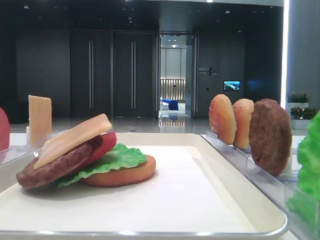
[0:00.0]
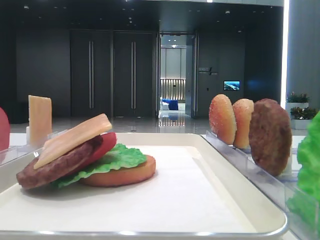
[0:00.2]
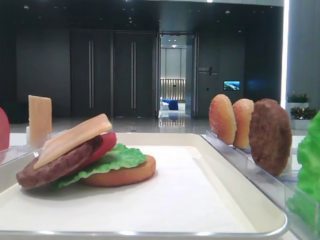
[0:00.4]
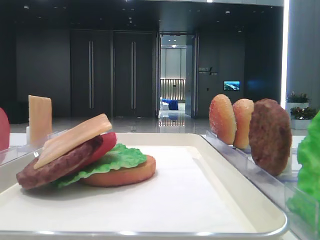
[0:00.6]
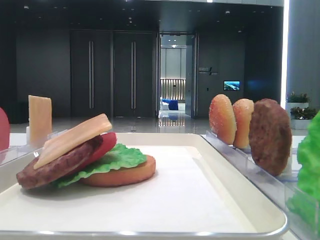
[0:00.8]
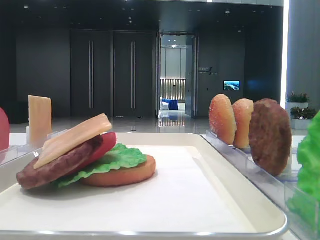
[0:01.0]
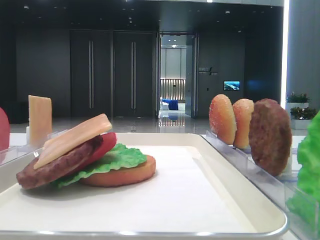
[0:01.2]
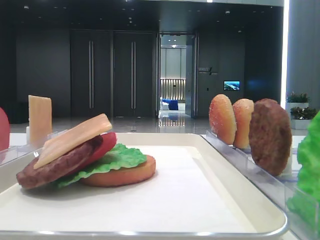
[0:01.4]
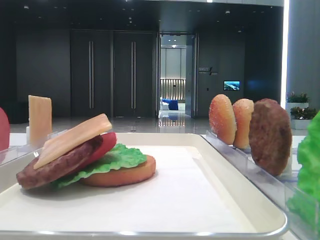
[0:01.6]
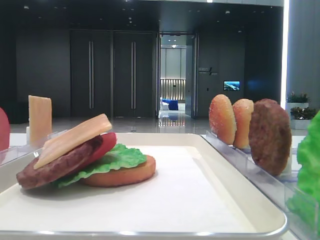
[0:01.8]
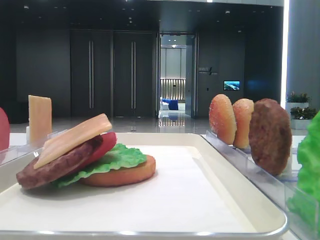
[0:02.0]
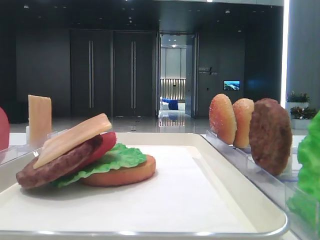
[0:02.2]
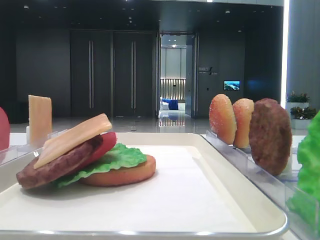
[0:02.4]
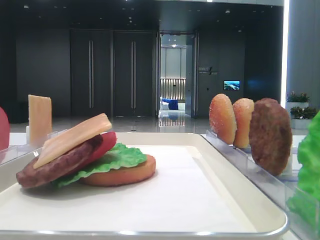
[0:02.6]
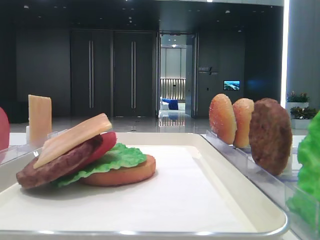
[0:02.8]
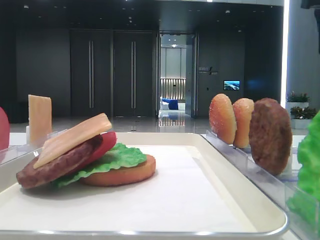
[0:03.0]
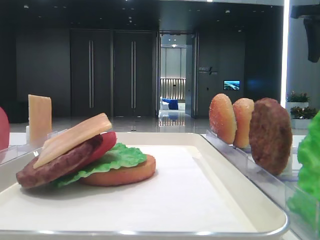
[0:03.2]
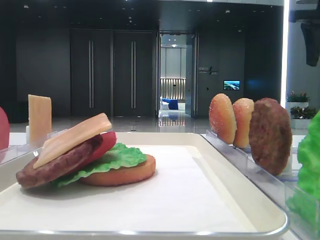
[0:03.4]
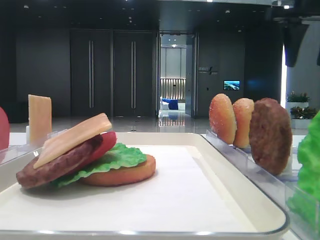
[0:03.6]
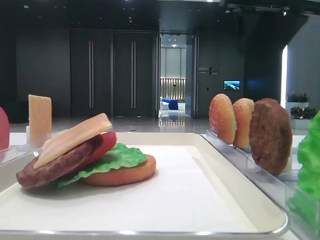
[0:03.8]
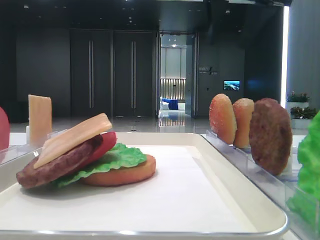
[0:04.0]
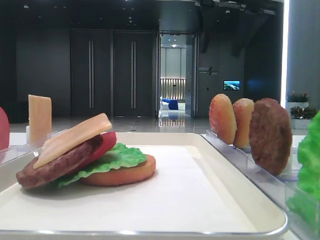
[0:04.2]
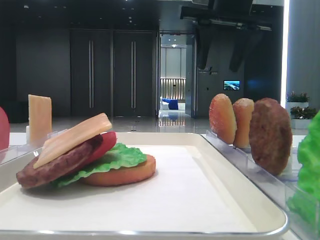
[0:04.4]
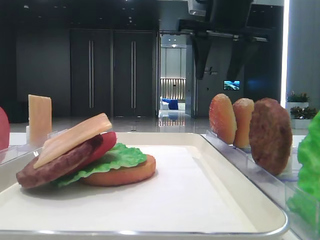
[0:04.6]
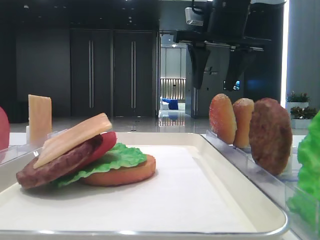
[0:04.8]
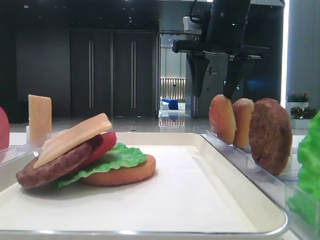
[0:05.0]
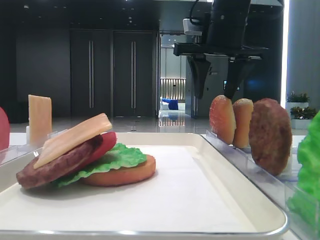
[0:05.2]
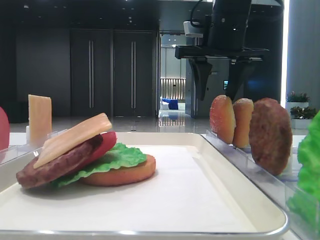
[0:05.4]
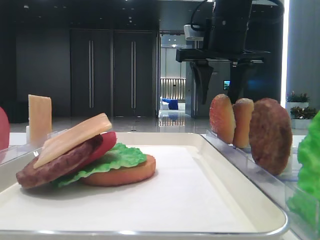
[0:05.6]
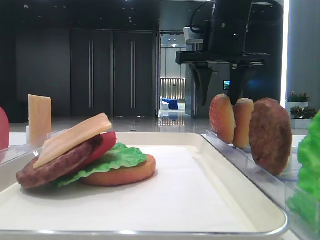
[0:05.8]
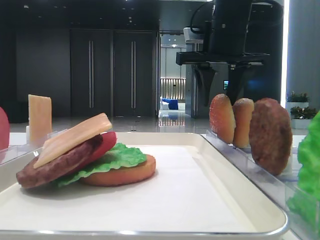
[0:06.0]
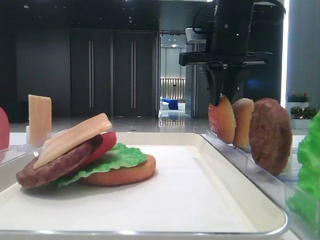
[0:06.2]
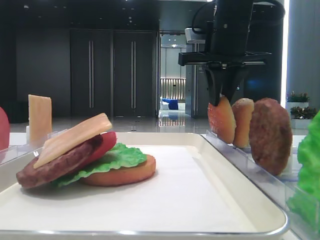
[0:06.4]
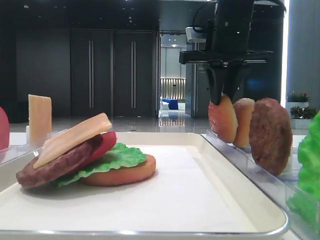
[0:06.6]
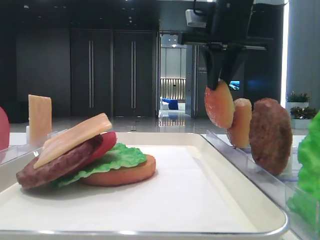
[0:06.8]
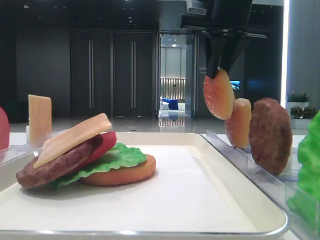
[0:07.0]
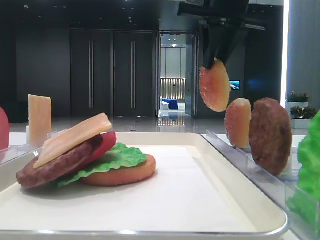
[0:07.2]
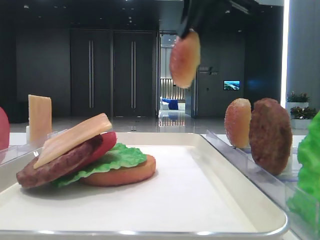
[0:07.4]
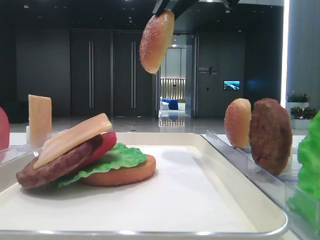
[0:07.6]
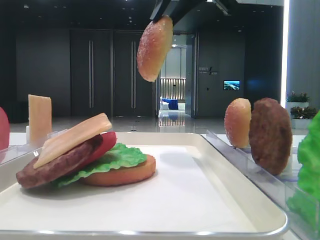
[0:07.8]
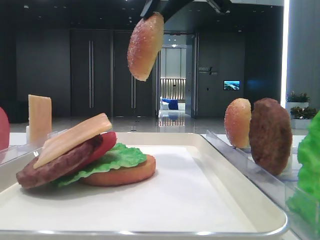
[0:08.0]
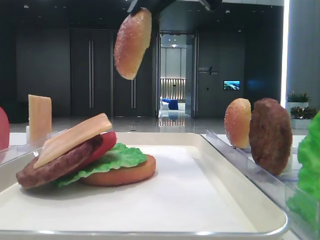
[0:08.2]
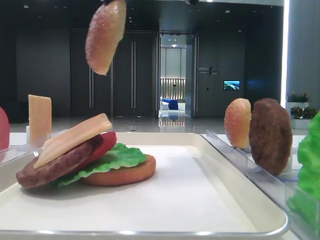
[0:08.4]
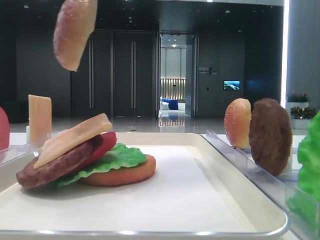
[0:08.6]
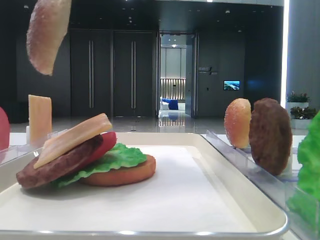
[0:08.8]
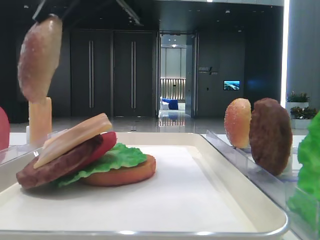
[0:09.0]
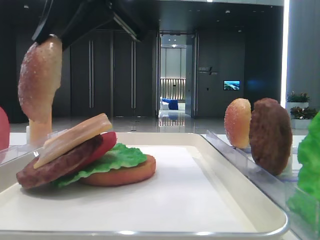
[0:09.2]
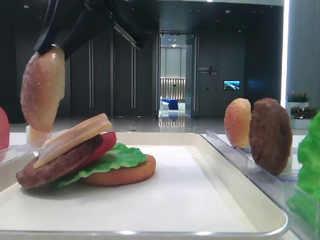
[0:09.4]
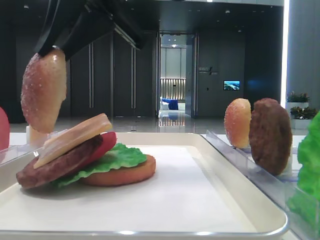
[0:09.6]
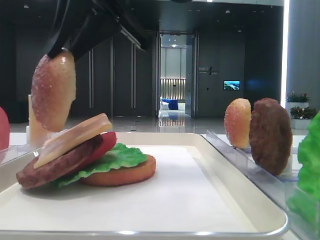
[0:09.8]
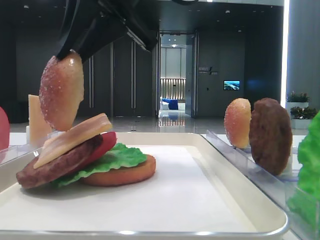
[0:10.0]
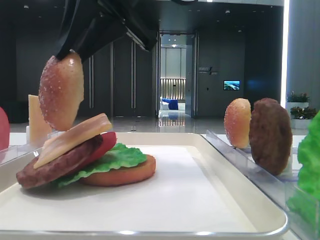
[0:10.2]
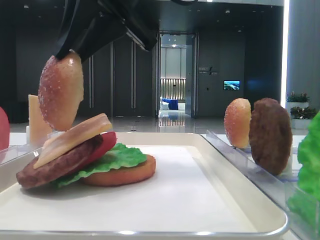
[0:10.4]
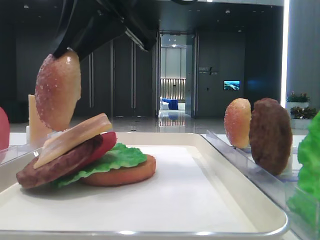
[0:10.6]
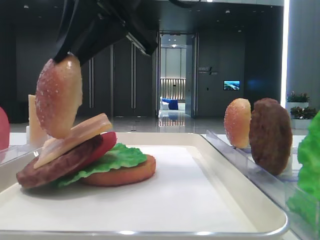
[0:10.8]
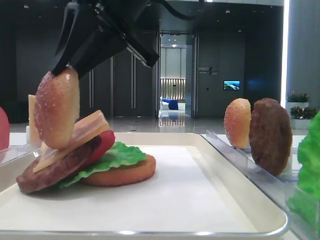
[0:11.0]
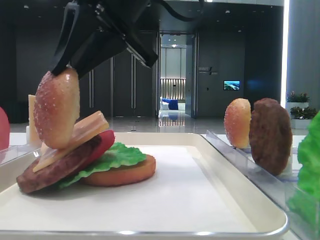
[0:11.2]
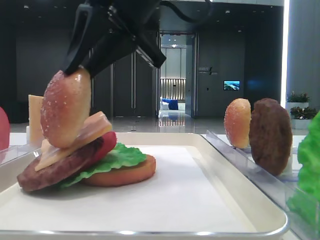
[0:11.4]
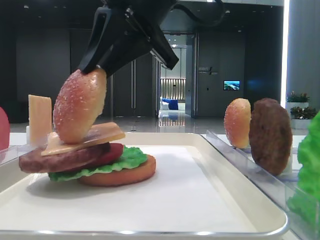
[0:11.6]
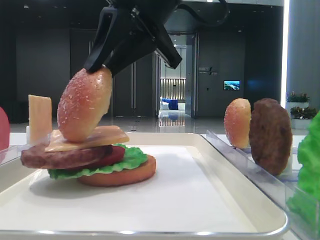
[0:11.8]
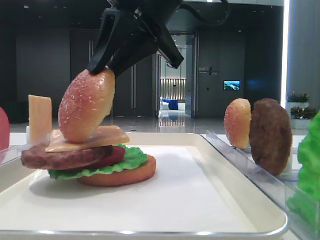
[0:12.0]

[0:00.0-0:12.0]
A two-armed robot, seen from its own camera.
Step, 0:00.0 to 0:06.4: Pick up the top bread slice with the right hand.
0:01.6 to 0:03.0: The right gripper travels forward by roughly 40 cm.
0:03.0 to 0:04.4: The right gripper travels to the left by roughly 20 cm.
0:04.4 to 0:06.0: The right gripper travels downward by roughly 5 cm.
0:06.0 to 0:07.6: The left gripper closes, while the right gripper moves upward and backward, about 10 cm, and closes up.
0:07.6 to 0:09.0: The right gripper moves to the left and backward, roughly 15 cm.
0:09.0 to 0:10.4: There are only small adjustments of the grippers.
0:10.4 to 0:12.0: There are only small adjustments of the grippers.

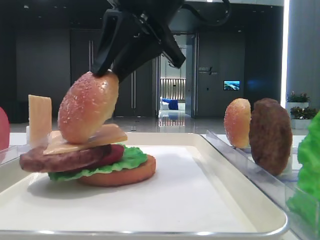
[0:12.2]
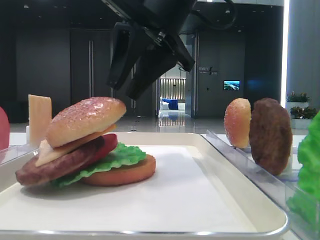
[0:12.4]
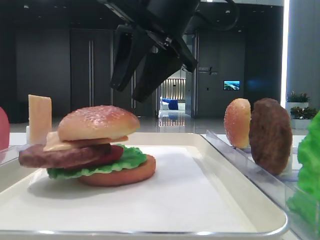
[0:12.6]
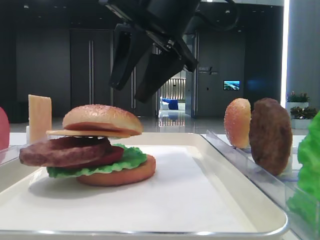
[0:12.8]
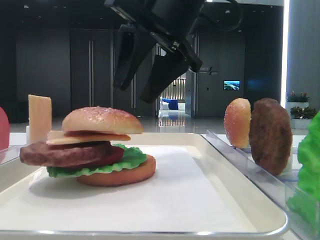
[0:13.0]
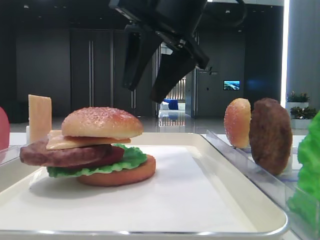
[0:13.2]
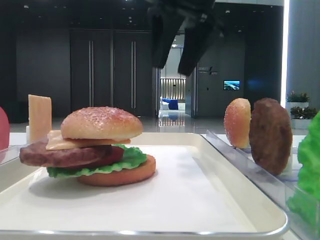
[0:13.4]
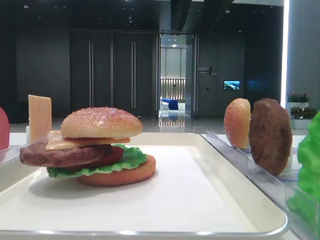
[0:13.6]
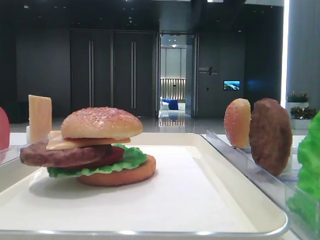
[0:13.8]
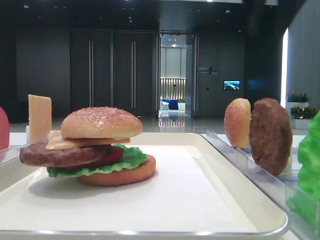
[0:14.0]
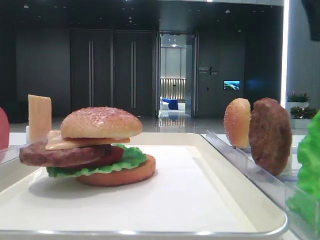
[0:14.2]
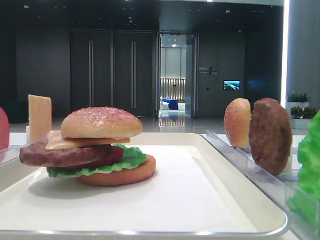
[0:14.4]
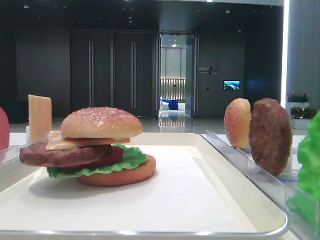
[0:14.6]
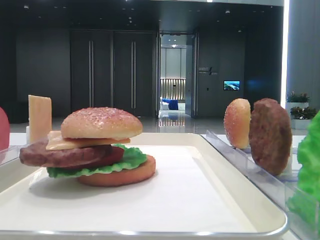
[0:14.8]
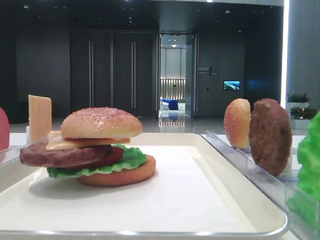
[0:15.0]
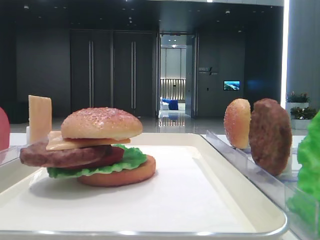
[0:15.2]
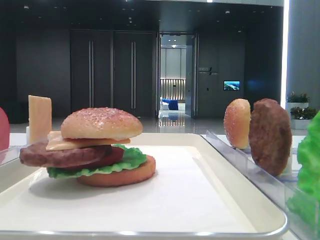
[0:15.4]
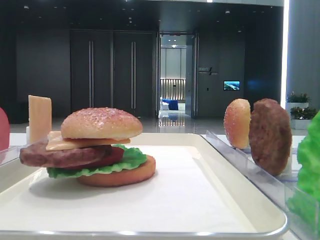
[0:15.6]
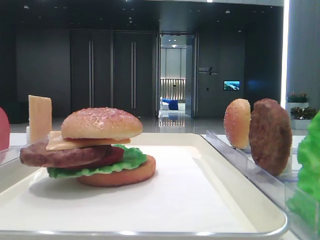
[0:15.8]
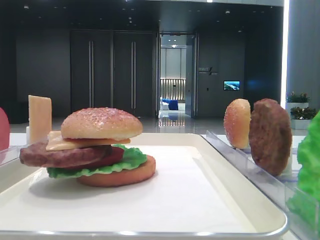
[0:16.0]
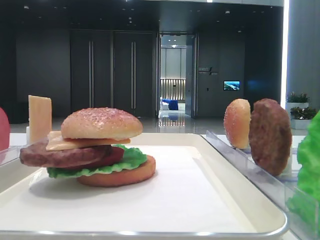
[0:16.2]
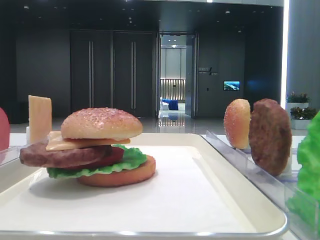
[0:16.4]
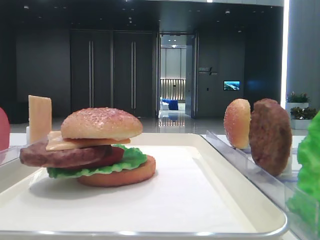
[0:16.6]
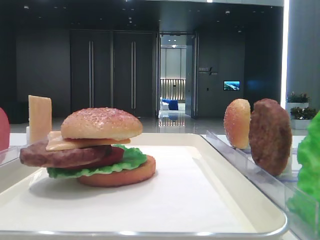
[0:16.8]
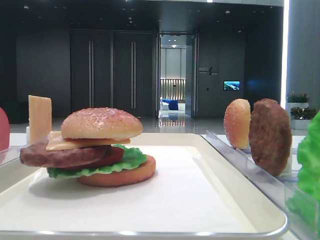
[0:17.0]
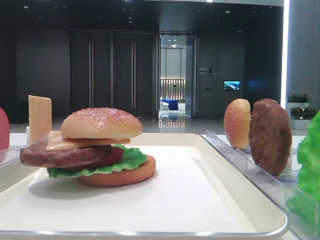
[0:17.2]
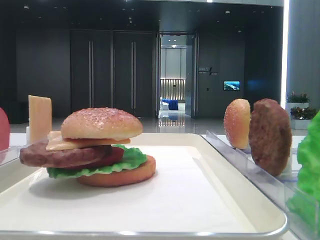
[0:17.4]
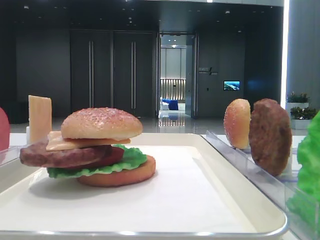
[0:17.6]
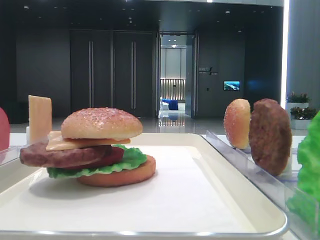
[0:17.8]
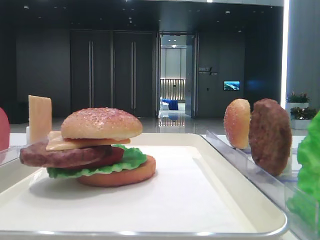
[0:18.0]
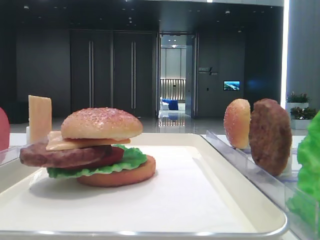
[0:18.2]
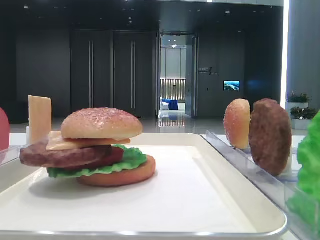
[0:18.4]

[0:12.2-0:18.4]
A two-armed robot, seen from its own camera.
0:12.2 to 0:13.8: The right gripper moves upward and to the right, some 15 cm, and opens its fingers.
0:13.8 to 0:15.4: The right gripper travels backward and to the right by approximately 35 cm.
0:16.8 to 0:18.4: The two grippers keep their place.

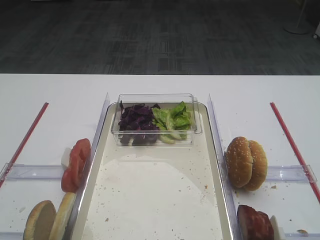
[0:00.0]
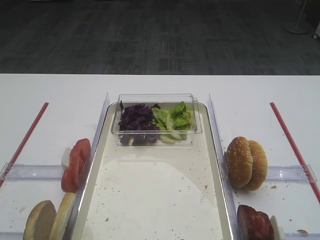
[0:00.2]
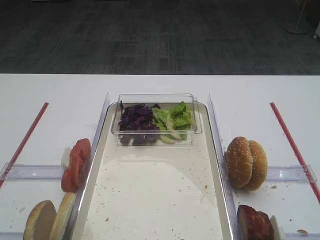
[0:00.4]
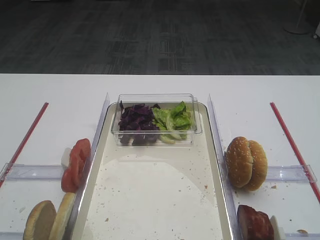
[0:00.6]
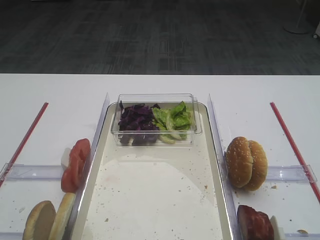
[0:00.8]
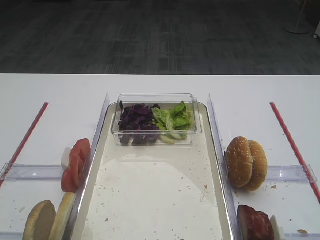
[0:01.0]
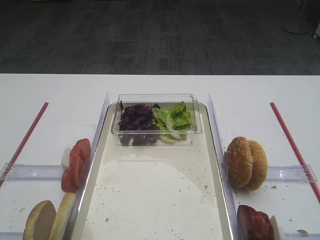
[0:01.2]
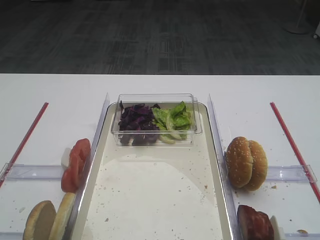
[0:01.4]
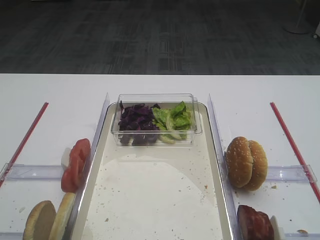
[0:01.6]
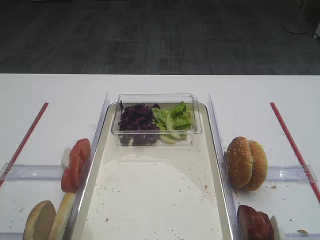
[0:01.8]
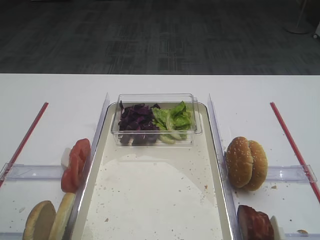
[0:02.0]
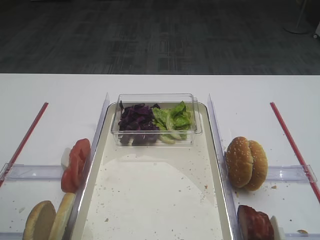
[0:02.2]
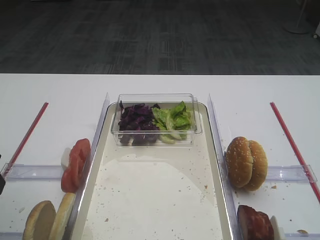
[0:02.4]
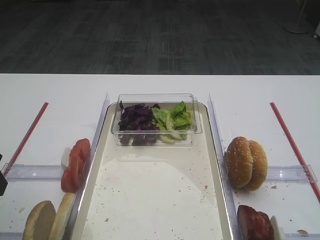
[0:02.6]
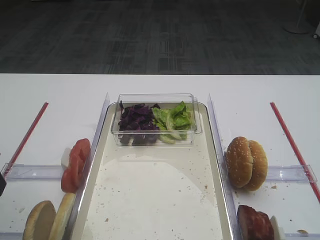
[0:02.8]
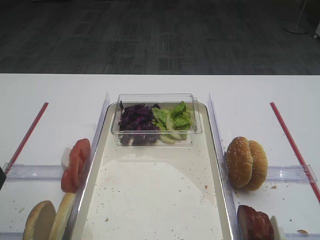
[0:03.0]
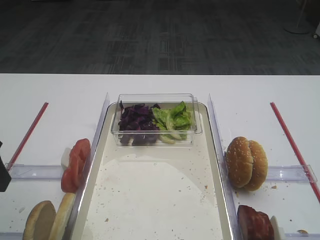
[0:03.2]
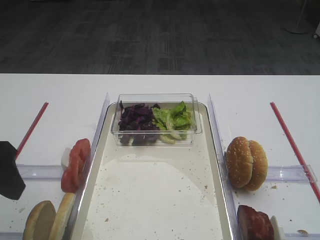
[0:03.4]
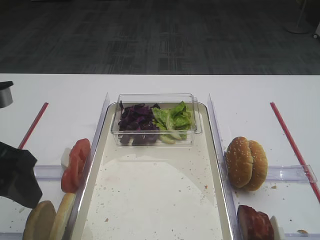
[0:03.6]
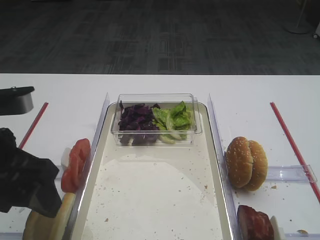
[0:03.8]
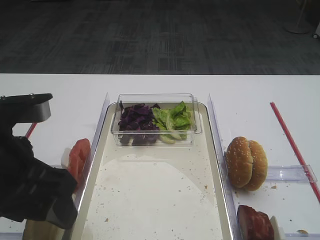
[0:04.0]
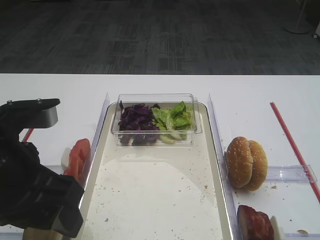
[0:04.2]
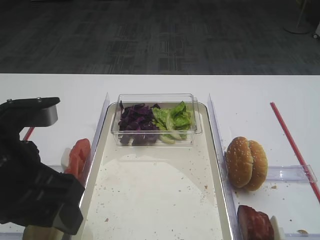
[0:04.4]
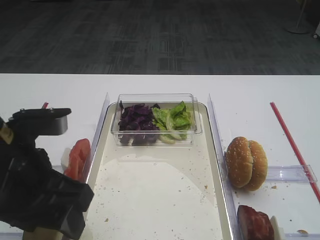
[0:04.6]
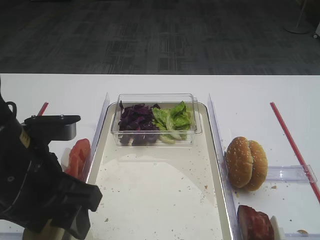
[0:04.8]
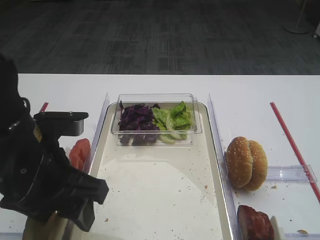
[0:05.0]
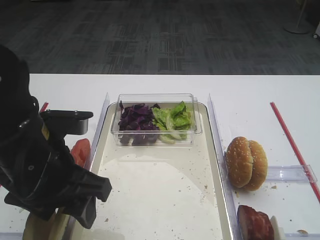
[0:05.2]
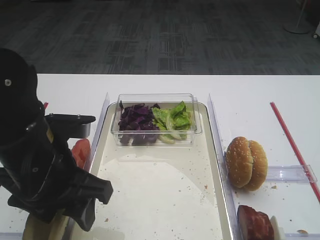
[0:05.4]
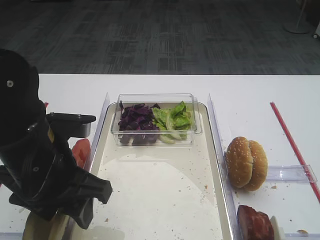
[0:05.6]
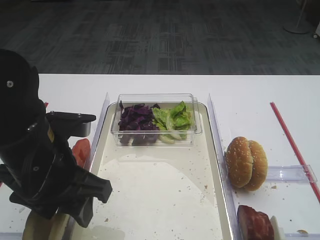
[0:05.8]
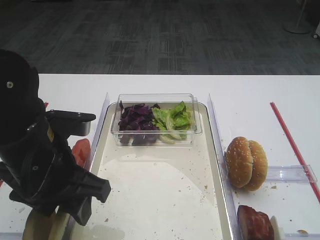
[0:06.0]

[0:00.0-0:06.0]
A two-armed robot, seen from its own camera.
0:03.0 to 0:04.4: The left gripper is displaced to the right by some 10 cm.
0:04.4 to 0:06.0: The left gripper changes place by roughly 5 cm.
